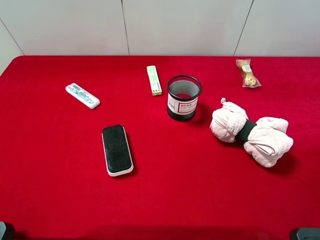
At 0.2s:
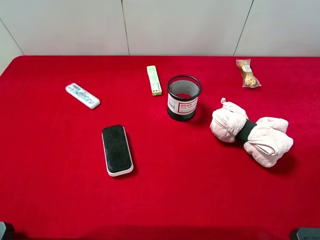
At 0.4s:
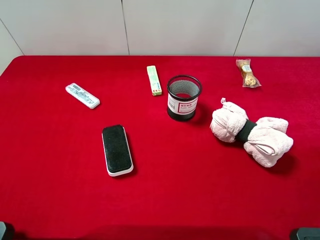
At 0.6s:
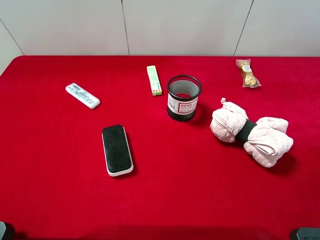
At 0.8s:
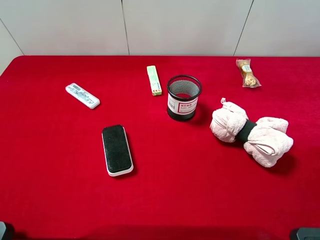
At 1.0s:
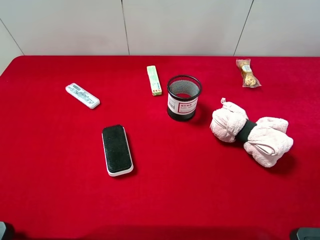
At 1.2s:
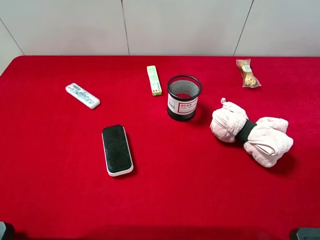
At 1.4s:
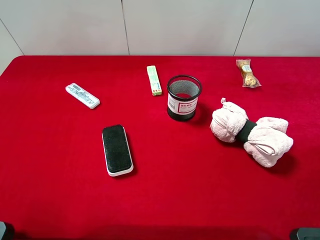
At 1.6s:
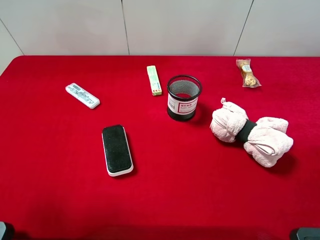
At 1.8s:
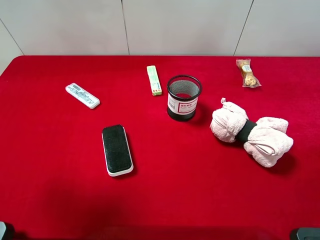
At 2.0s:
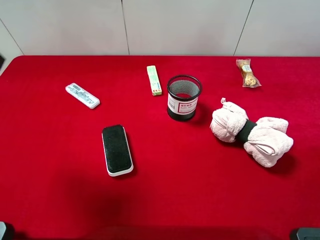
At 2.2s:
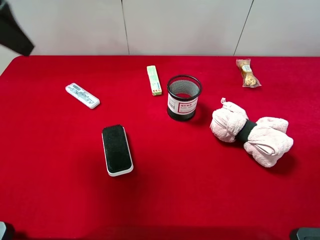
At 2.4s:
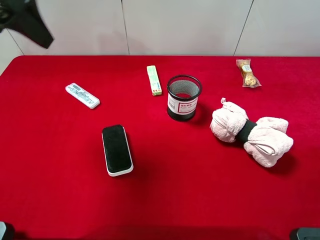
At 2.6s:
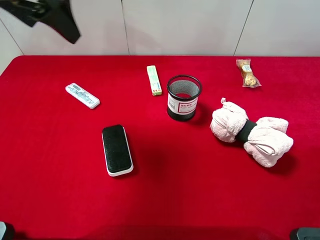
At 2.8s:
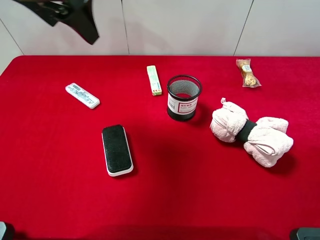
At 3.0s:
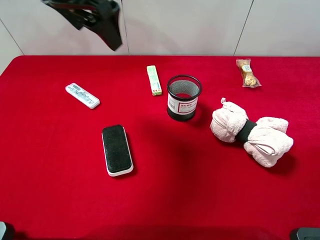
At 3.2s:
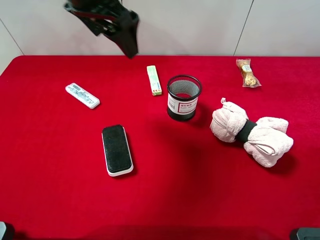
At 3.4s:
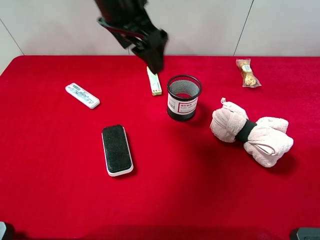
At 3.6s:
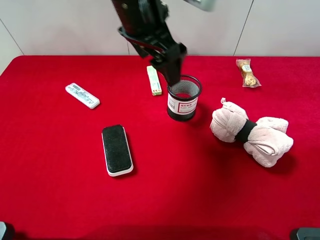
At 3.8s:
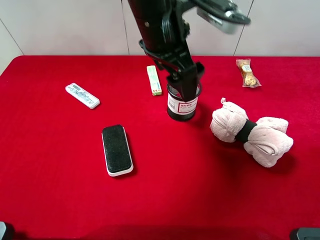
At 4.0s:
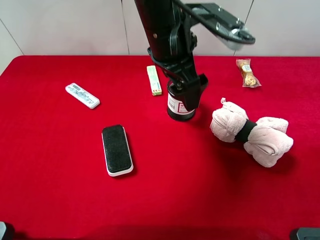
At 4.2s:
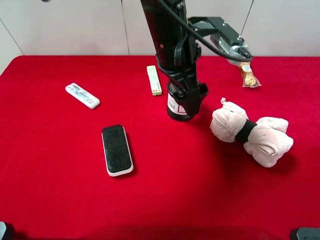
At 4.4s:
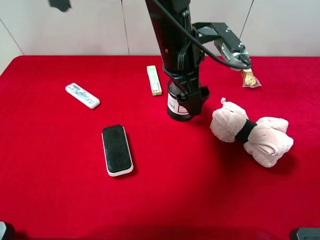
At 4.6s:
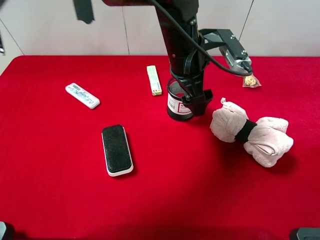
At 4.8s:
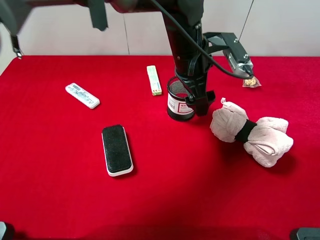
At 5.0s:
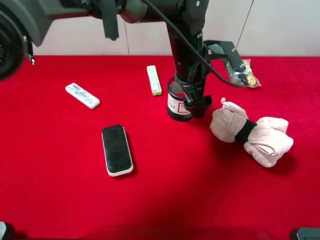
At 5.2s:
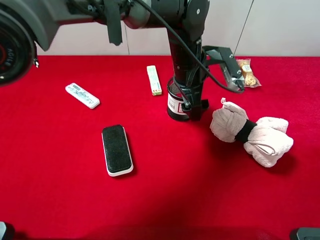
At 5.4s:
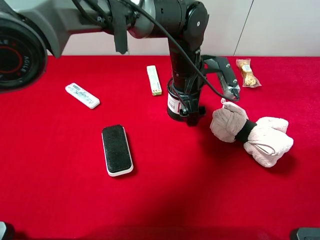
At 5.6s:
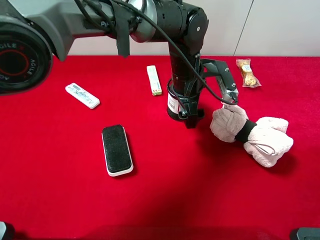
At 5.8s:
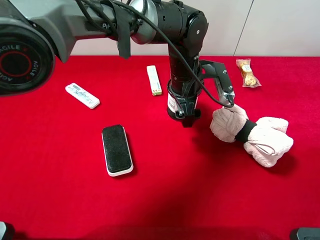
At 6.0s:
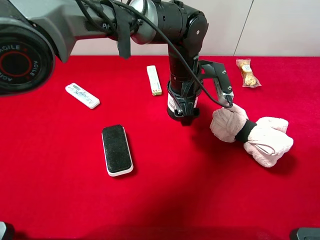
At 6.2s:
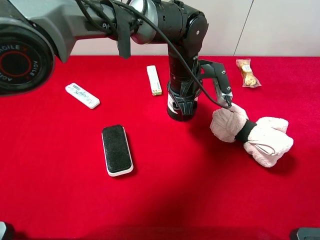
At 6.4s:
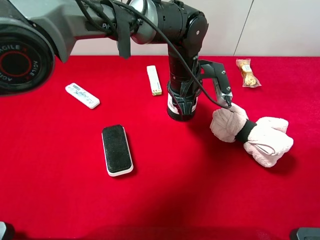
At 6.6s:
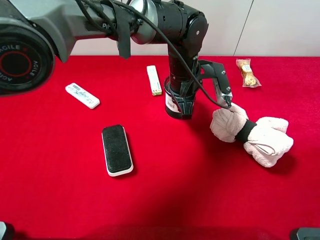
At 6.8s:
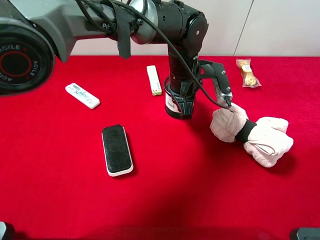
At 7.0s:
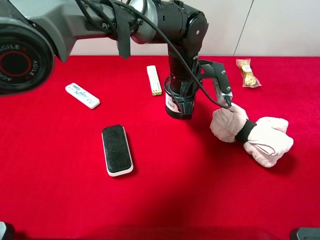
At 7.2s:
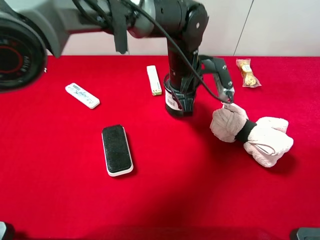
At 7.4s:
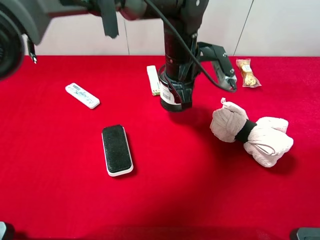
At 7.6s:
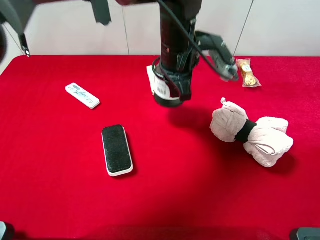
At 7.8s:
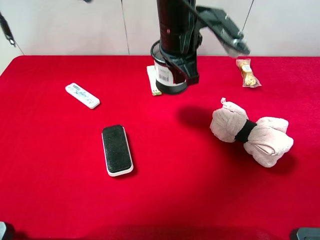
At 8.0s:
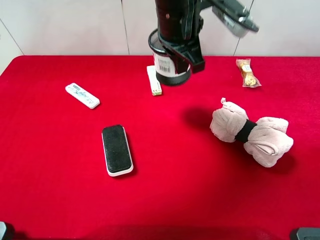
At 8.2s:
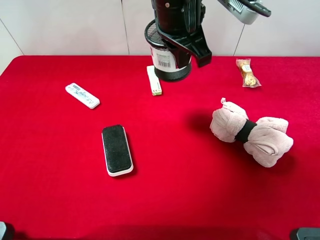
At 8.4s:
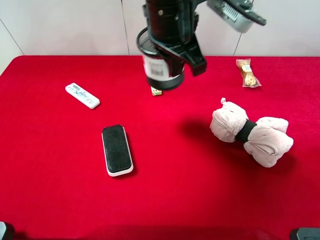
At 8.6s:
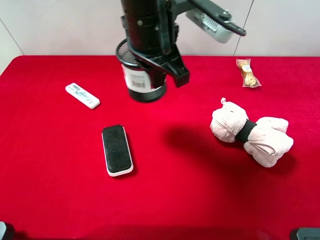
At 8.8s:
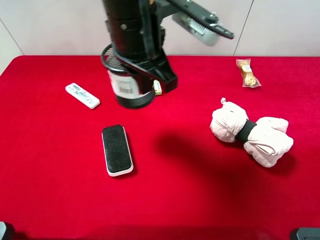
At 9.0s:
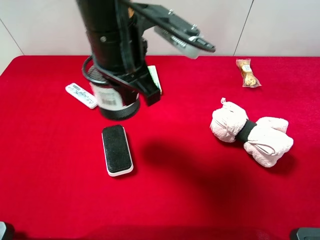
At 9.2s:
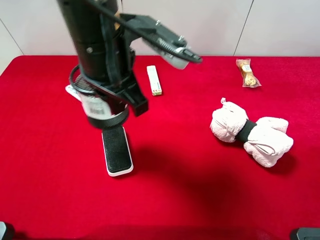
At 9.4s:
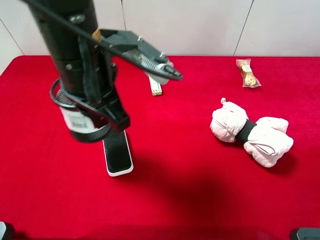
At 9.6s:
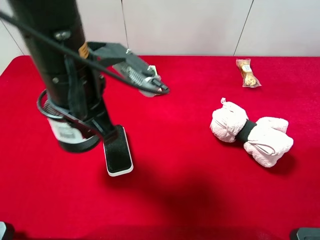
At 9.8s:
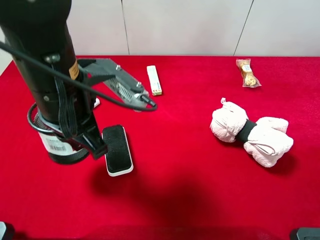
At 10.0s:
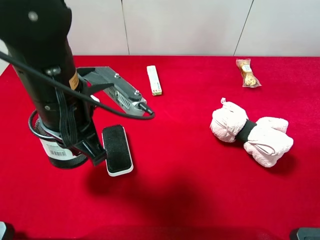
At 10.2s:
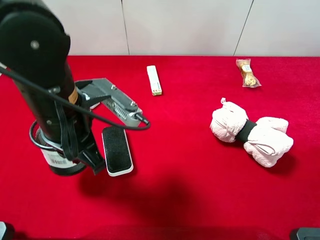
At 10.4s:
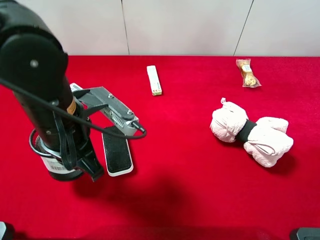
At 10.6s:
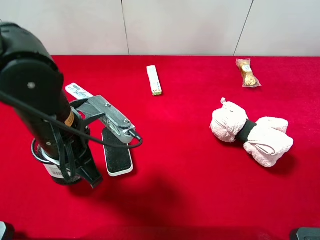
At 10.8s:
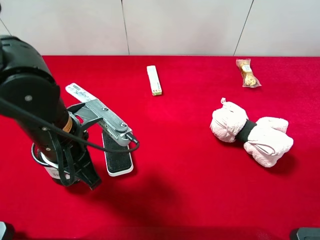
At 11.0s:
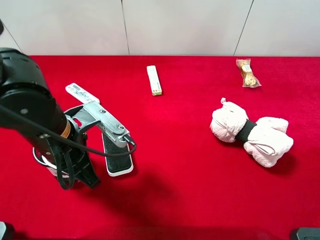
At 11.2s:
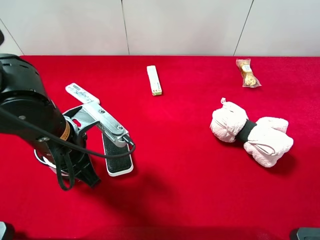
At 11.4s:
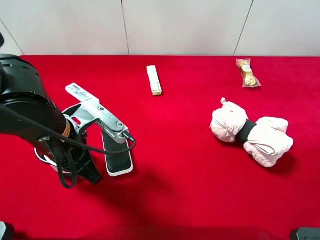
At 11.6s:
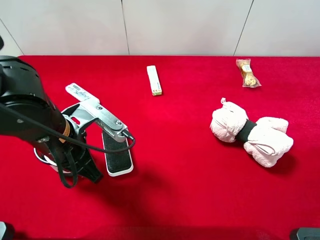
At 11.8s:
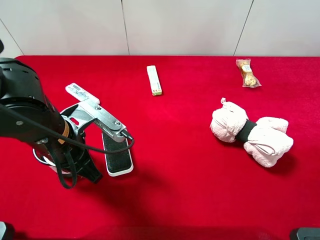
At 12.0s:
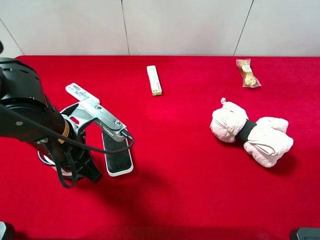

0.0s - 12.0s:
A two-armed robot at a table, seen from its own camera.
Task of the whole recording: the gripper move the object.
Step, 0.0s - 6.8s: Grasp the pen container with the left gripper.
1.6s - 3.0s: The left gripper heads forward and to the right, covering approximately 25 cm.
3.0s - 4.4s: The left gripper travels to the right and downward by about 20 cm.
4.4s - 6.0s: The left gripper travels downward by roughly 10 cm.
6.0s - 7.6s: The left gripper heads upward, covering about 10 cm, and closes.
7.6s - 9.0s: The left gripper travels backward, to the left and upward by approximately 15 cm.
9.0s - 10.4s: The left gripper heads downward, to the left and backward, covering some 15 cm.
10.4s - 12.0s: The grippers move only a little.

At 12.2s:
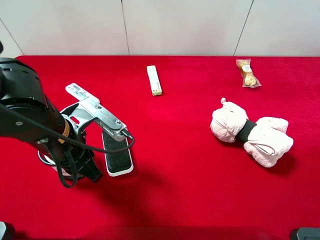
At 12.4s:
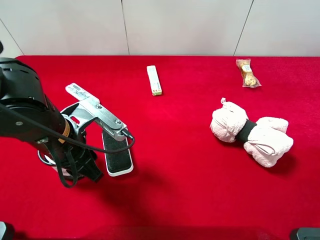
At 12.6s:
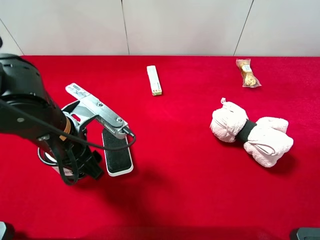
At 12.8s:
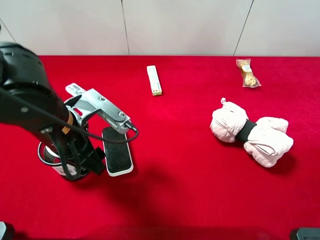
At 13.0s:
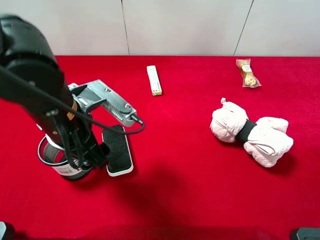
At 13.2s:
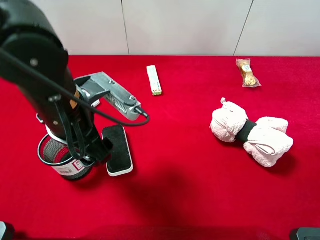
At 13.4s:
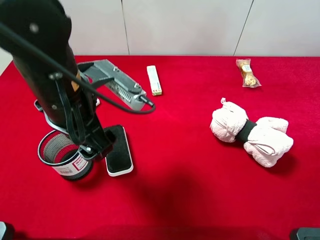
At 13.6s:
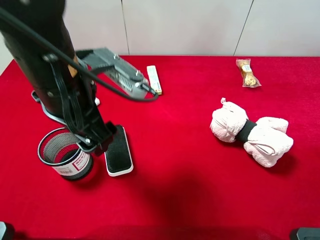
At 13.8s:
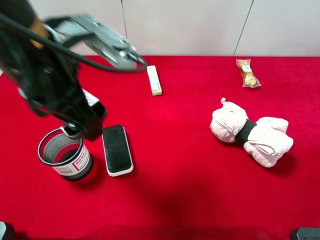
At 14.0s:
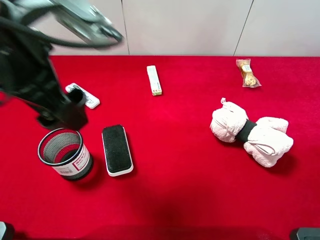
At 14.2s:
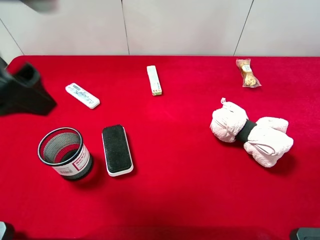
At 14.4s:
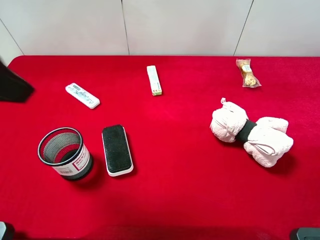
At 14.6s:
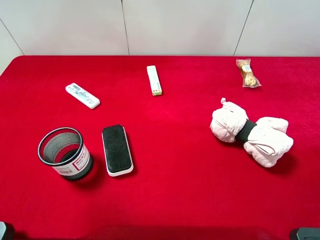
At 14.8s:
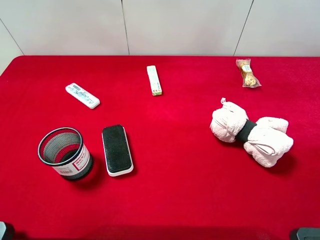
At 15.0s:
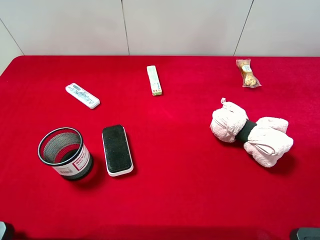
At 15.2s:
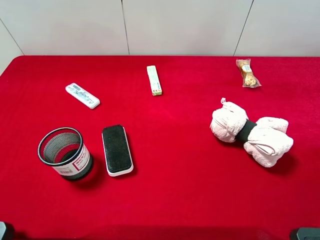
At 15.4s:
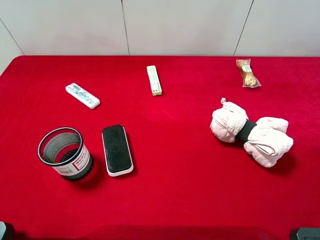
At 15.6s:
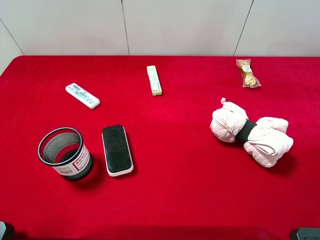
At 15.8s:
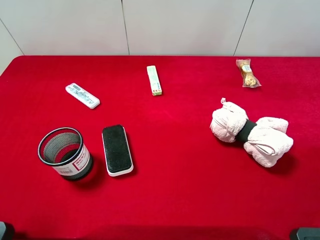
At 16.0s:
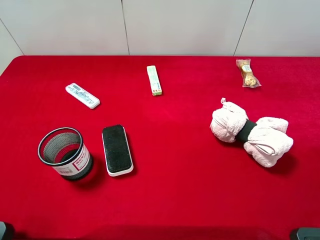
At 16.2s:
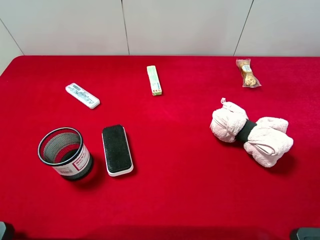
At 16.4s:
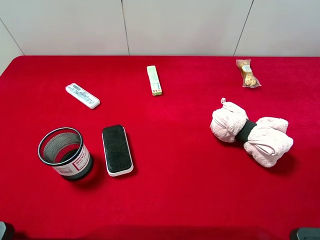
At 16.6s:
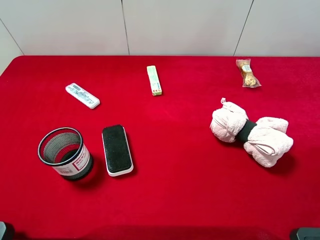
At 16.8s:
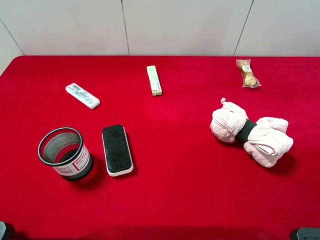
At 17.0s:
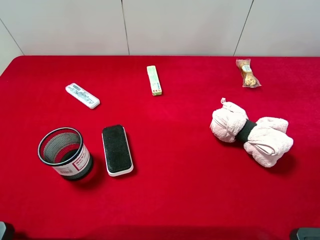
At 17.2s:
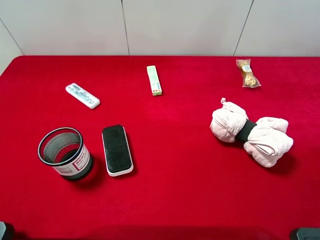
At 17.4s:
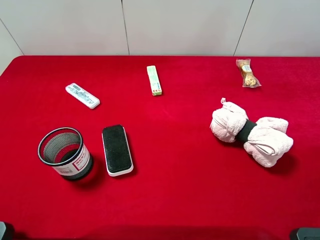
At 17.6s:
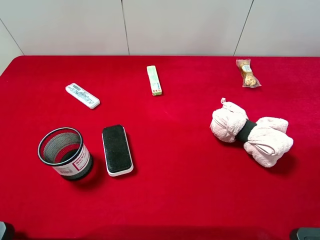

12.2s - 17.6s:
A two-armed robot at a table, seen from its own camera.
Task of the whole recording: the gripper move the object.
12.2s - 13.6s: The left gripper heads upward, covering approximately 10 cm, and opens.
13.6s - 15.0s: The left gripper shifts roughly 25 cm to the left, backward and upward.

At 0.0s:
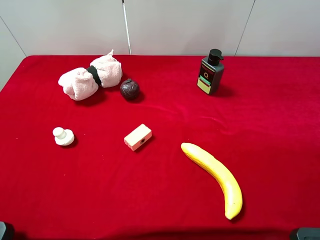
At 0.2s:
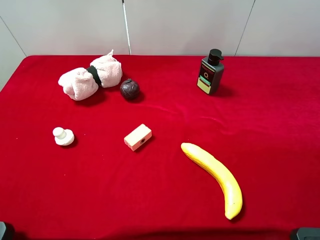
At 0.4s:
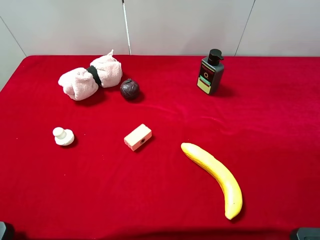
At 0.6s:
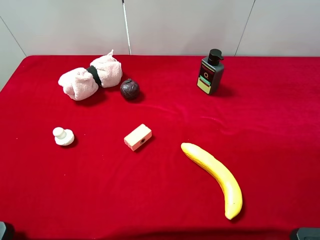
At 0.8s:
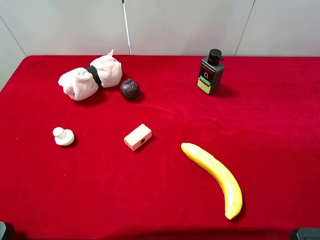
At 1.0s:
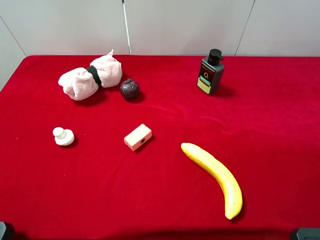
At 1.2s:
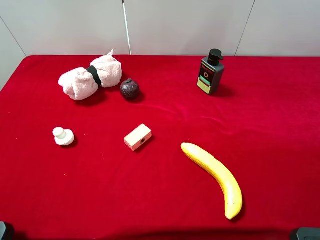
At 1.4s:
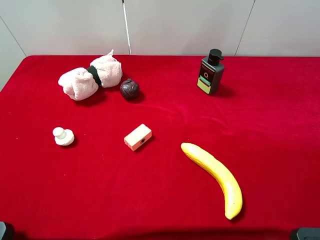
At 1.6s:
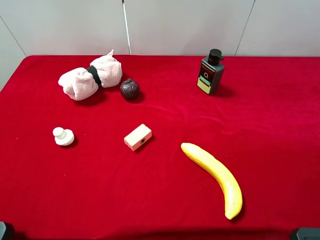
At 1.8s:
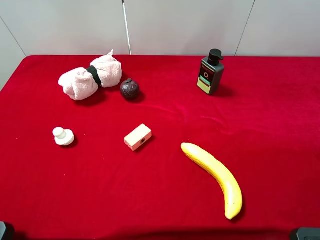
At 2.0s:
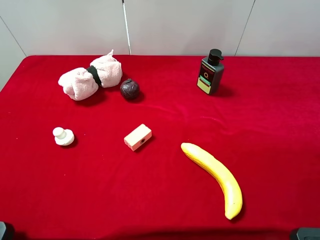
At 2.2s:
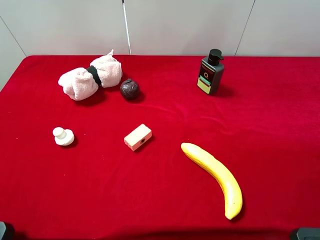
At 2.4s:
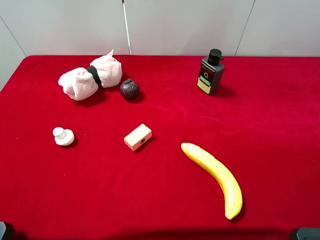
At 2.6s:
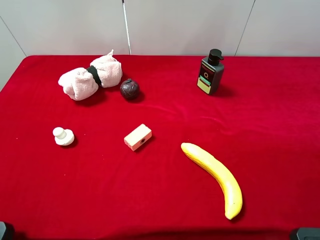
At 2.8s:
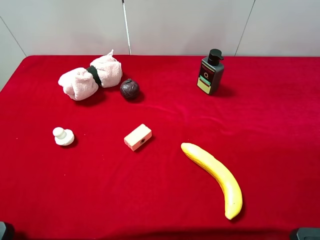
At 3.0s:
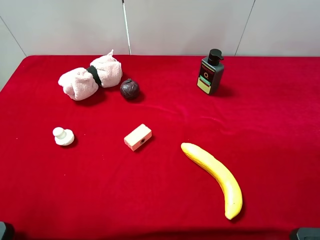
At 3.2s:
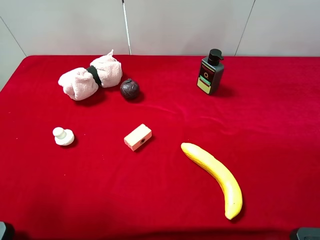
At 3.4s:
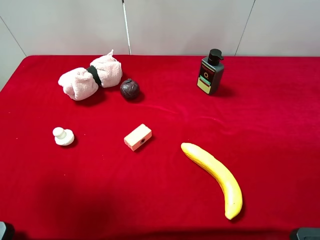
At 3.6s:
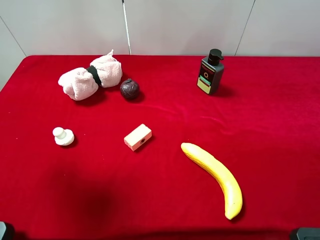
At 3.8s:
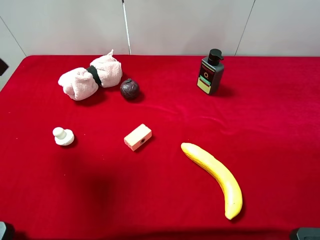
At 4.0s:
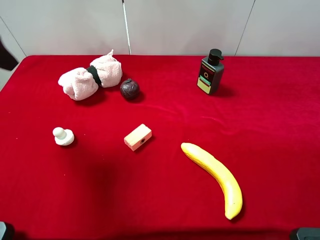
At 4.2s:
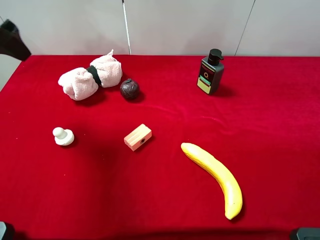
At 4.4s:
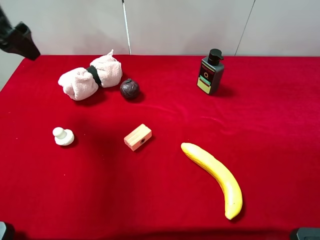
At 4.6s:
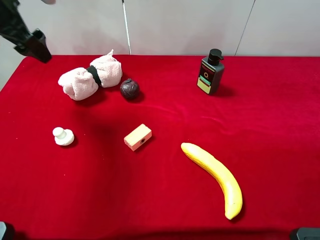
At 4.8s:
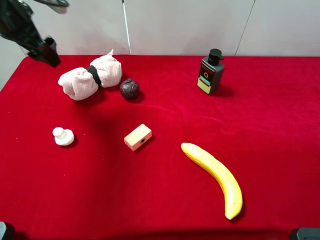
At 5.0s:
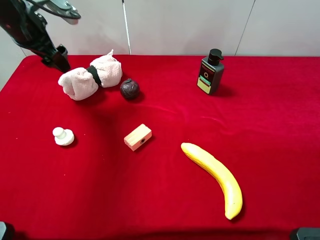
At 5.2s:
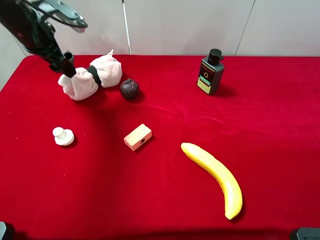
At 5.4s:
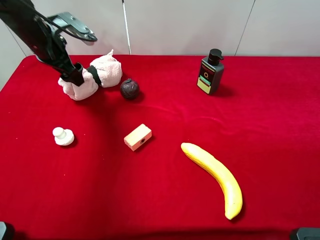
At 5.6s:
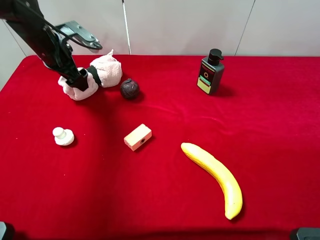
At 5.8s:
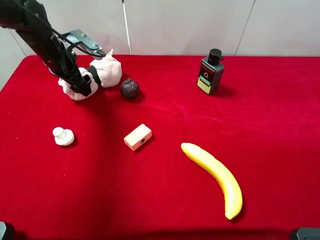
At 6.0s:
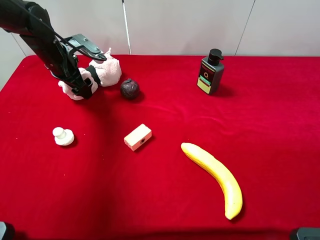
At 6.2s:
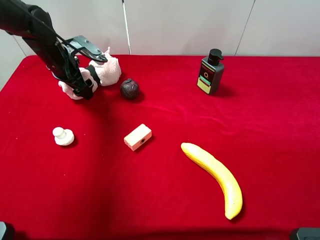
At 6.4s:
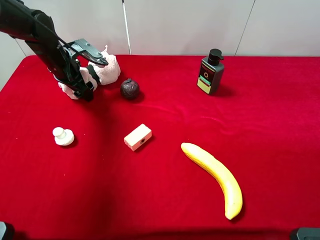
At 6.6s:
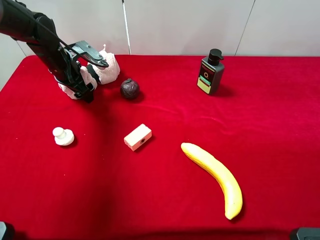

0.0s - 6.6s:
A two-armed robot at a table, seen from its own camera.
Task of the whole recording: the gripper move the object.
0.0s - 1.6s: Both grippers stay put.
3.2s - 5.0s: The left gripper goes some 25 cm forward.
5.0s - 6.6s: The left gripper goes about 10 cm downward.
